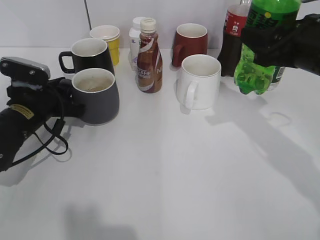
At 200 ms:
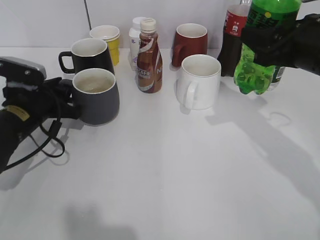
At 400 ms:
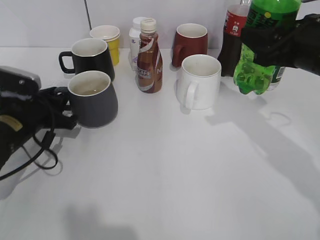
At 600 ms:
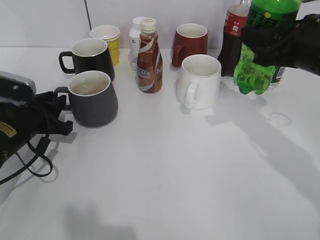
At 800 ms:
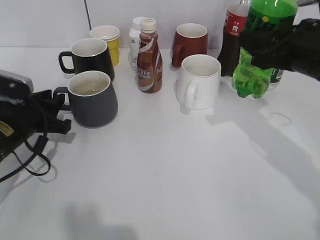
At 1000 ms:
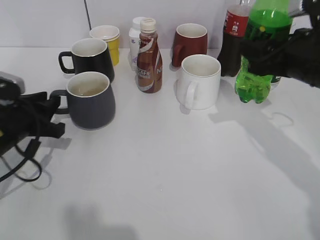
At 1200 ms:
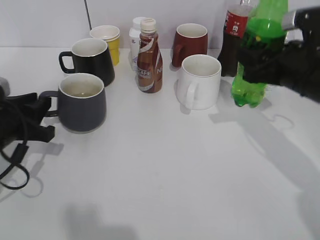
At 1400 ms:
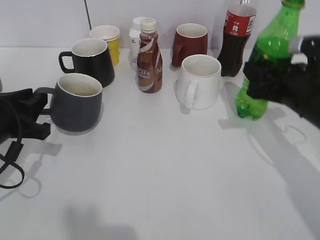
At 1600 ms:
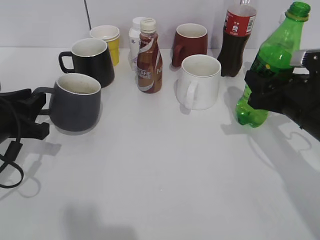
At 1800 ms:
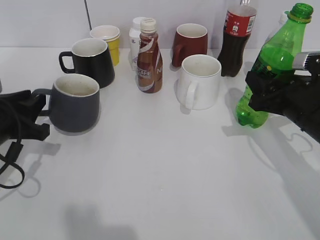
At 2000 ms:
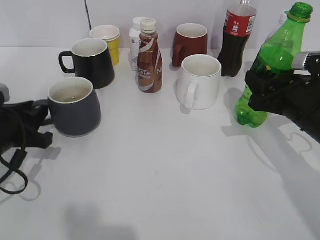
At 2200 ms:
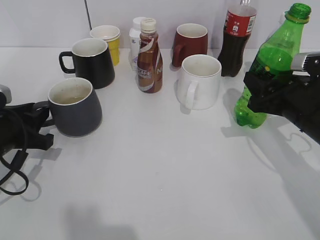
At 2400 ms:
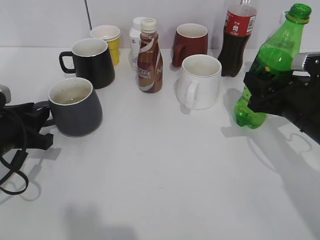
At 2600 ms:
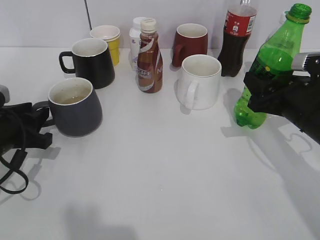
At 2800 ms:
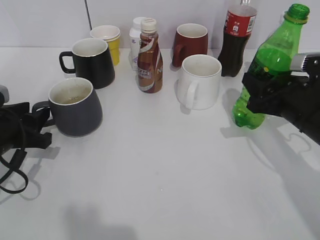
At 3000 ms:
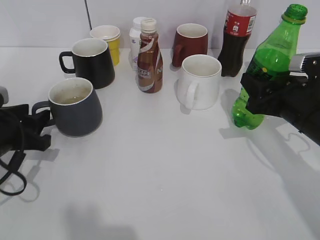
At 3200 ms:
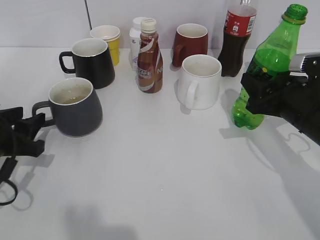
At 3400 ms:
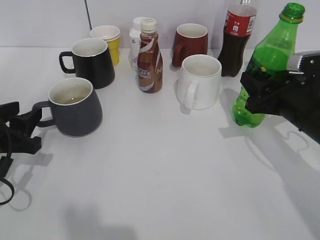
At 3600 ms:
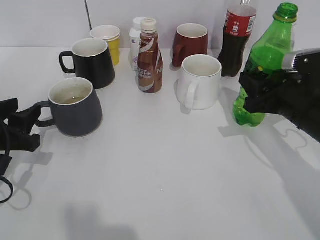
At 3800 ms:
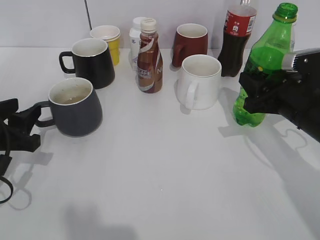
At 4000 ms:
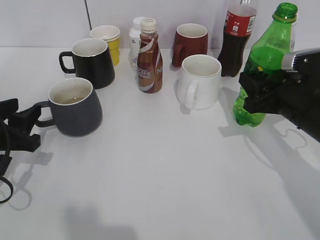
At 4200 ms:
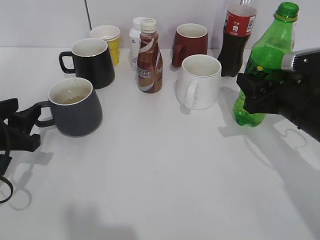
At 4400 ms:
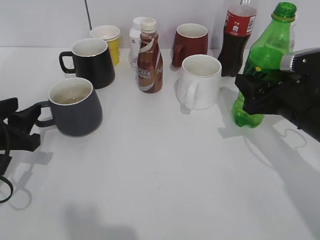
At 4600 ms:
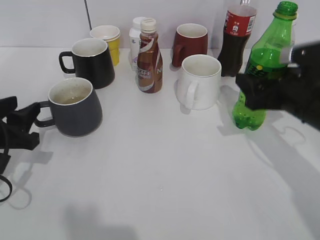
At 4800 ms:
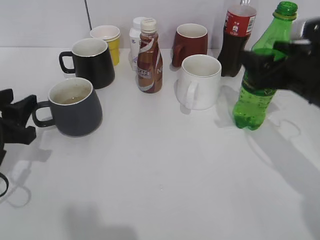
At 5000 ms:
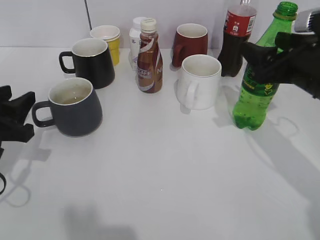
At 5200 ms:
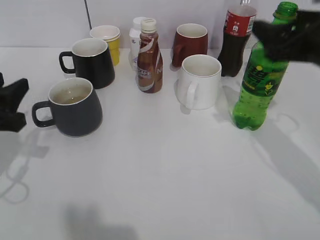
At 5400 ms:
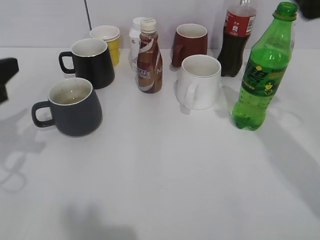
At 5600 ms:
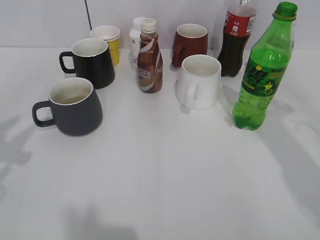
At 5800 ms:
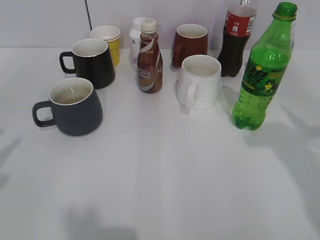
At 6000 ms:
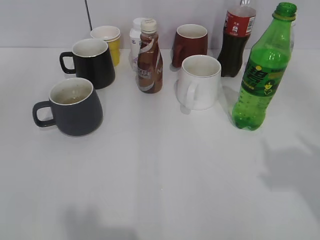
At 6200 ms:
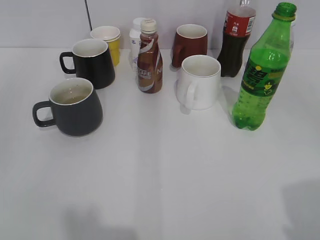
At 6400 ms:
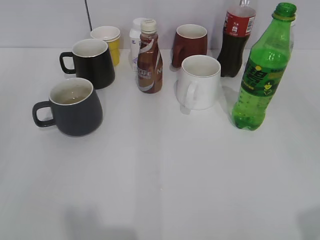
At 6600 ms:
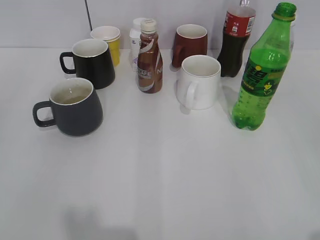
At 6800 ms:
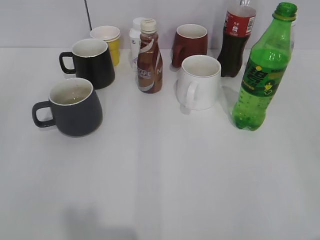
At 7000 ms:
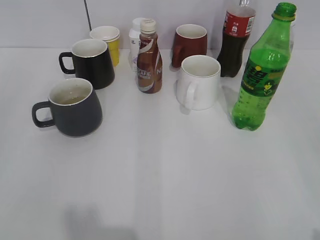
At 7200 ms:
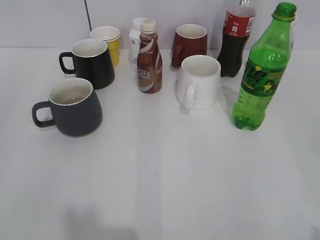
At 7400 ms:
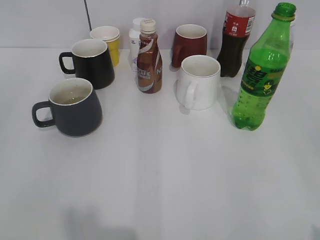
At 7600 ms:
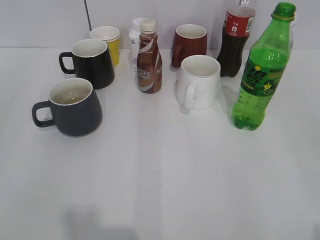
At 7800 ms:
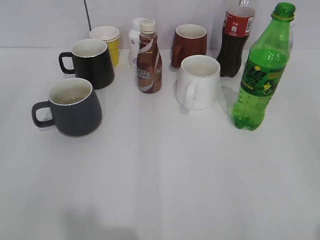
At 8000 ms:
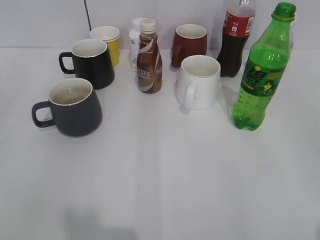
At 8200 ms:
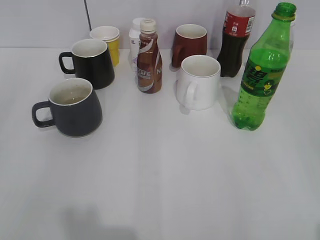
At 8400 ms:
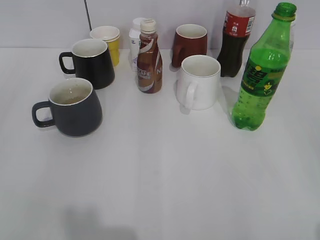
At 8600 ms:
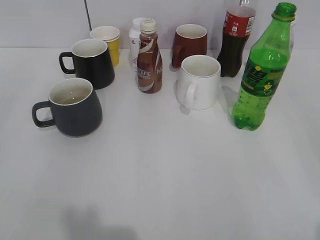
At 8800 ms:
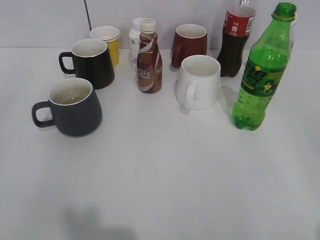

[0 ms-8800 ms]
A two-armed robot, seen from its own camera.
Step, 800 ms to 5000 ms: Place the sprite bottle on the table with right gripper.
0 ms to 1400 ms: The left gripper moves backward, about 10 cm. The right gripper is displaced downward by some 10 cm.
1400 ms to 3000 ms: The left gripper opens its fingers.
3000 ms to 4400 ms: The right gripper opens its fingers.
4400 ms to 5800 ms: Both grippers travel together upward and backward, approximately 25 cm. The right gripper opens.
5800 ms to 7400 ms: The right gripper is displaced backward and downward by roughly 20 cm; the left gripper goes approximately 15 cm backward and downward.

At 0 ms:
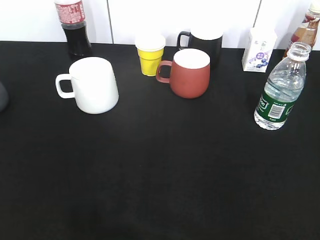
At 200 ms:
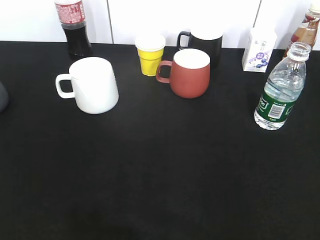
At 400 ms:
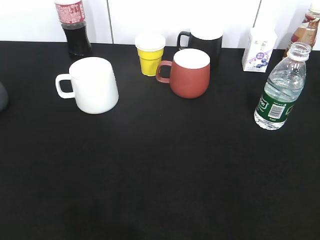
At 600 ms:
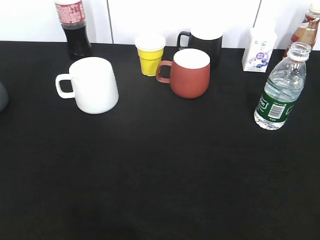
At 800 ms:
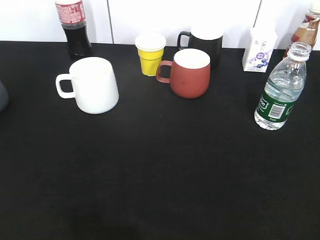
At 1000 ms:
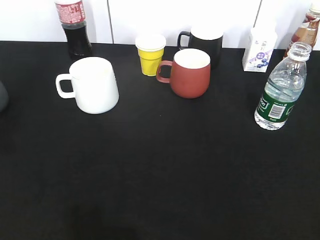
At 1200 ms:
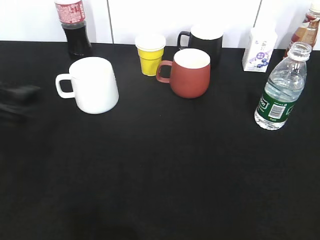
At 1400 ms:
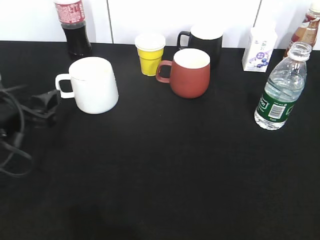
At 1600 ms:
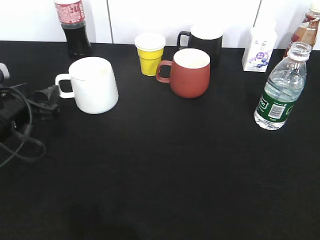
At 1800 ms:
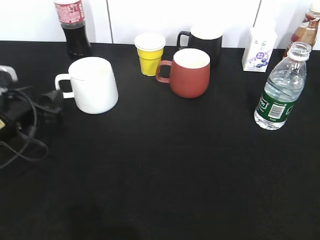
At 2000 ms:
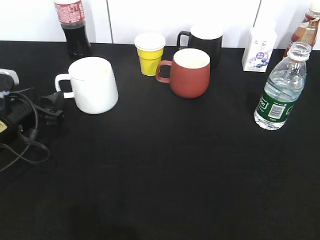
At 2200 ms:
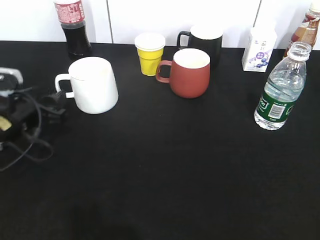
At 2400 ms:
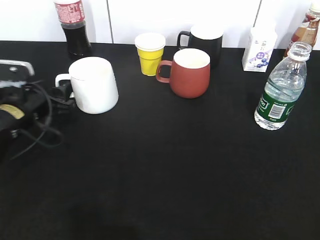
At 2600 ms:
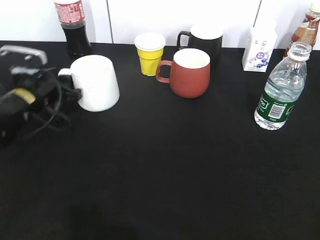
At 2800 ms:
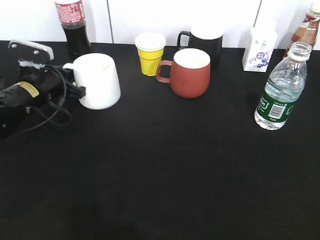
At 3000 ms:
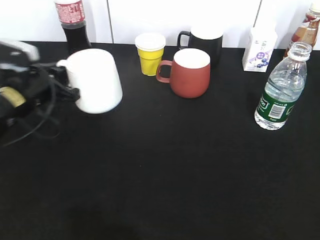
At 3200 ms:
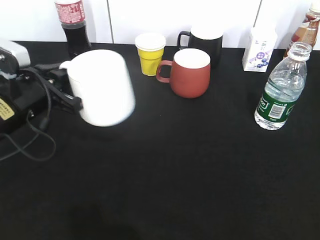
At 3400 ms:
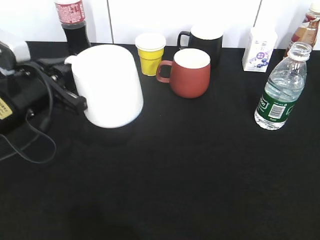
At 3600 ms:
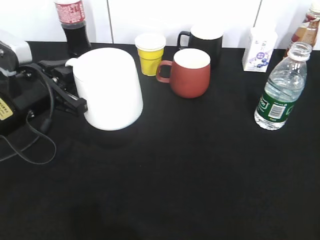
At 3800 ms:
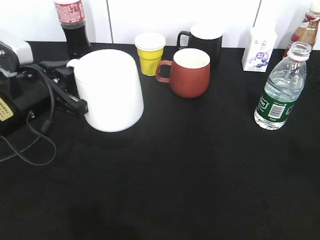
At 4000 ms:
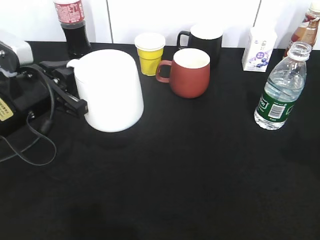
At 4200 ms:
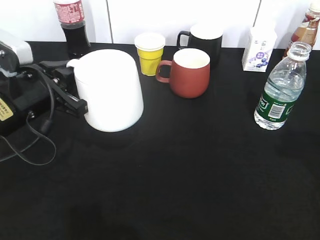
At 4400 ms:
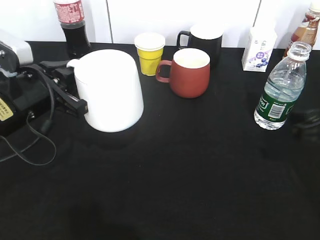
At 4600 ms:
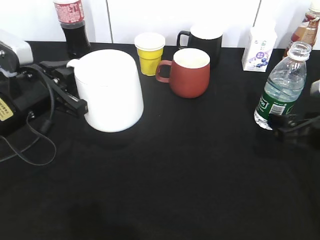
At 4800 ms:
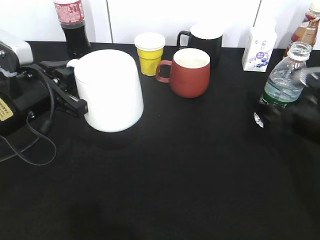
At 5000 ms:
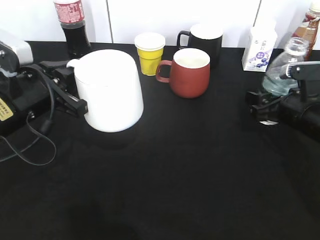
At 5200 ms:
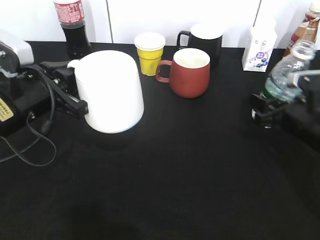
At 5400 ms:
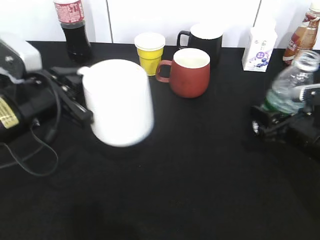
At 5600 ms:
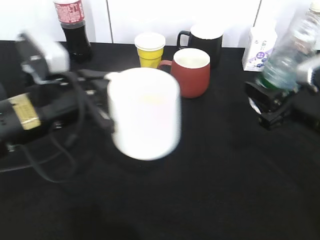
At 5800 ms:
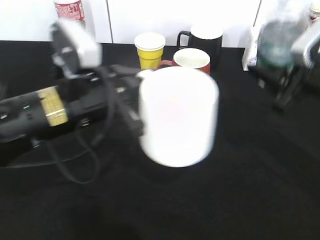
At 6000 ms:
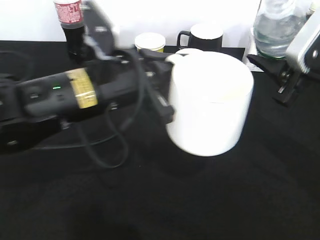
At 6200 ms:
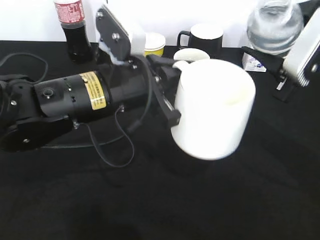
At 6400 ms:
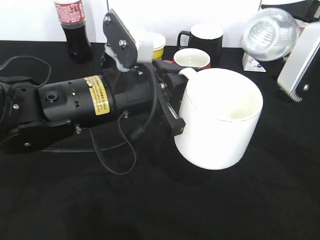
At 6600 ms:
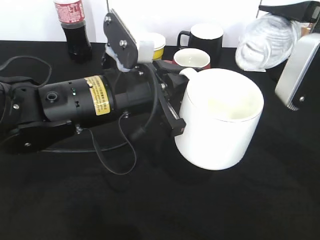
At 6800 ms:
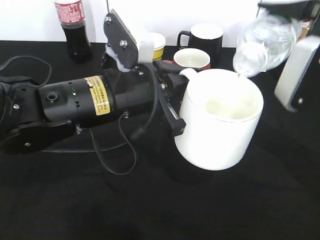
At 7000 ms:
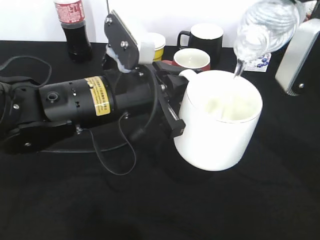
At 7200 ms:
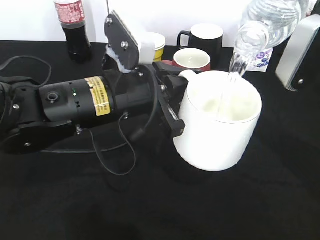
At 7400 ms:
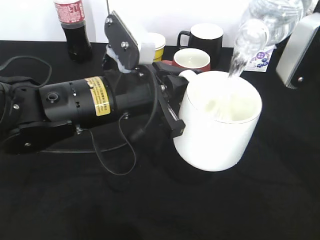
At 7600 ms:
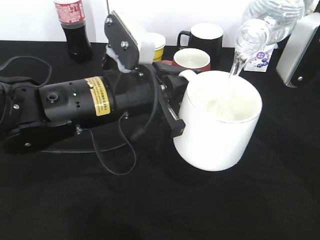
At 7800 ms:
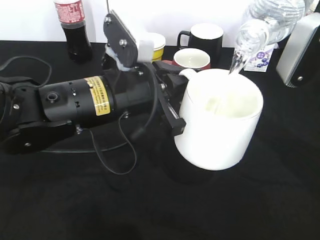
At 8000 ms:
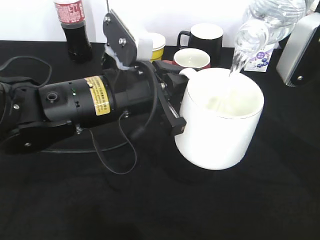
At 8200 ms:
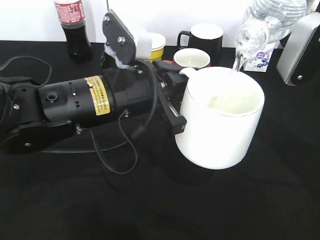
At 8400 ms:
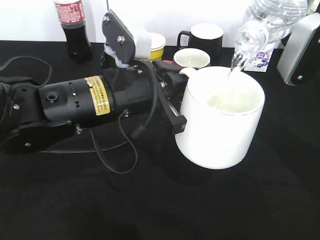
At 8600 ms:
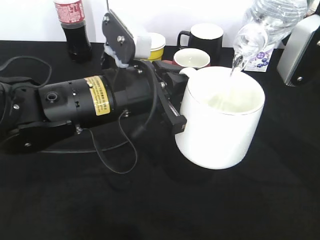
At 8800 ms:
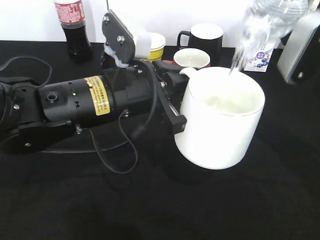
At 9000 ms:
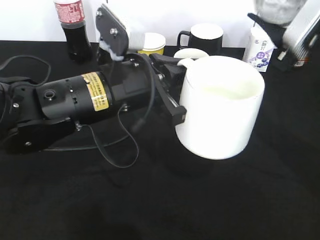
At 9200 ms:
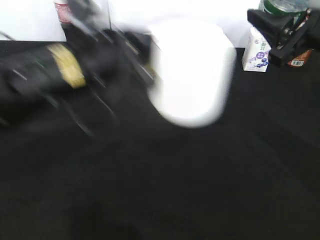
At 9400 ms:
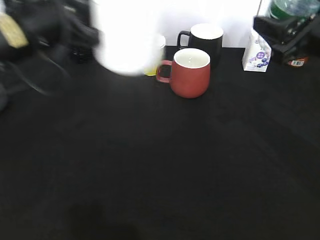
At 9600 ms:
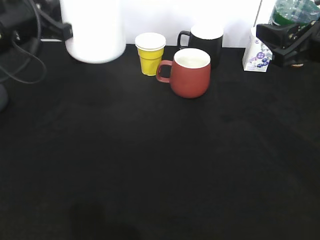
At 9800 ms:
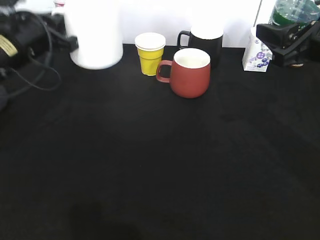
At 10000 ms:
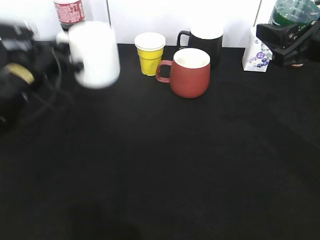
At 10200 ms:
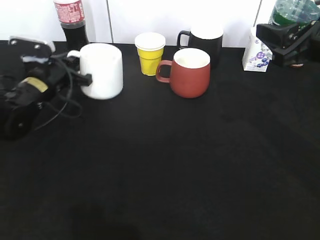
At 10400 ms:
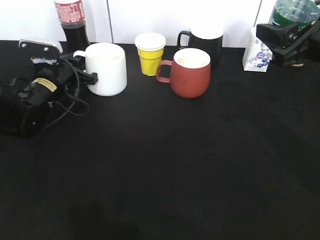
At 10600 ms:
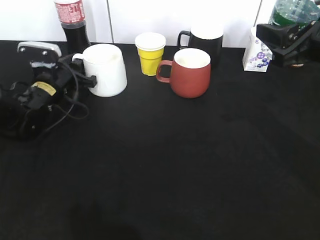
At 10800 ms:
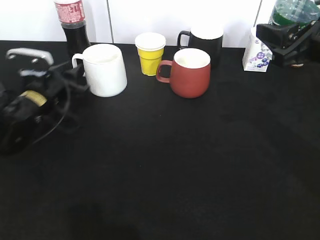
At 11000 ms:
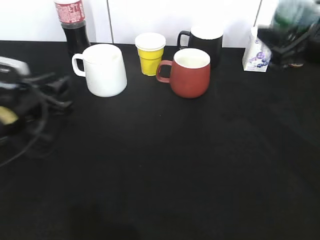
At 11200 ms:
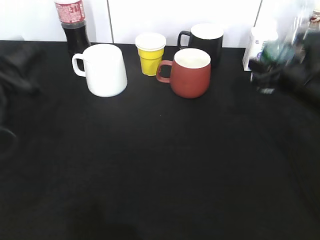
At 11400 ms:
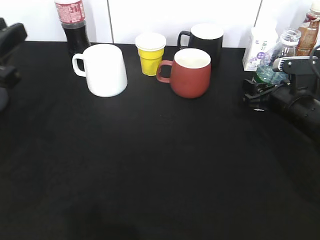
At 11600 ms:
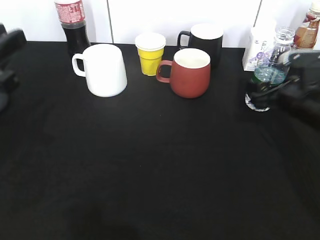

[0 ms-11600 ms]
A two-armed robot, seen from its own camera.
Step, 600 ms to 2600 ms: Grasp the white cup with left gripper.
Step, 3000 ms to 3400 ms: Lift the white cup with left gripper.
Step, 3600 ms to 5000 ms: Grasp the bottle with water with right gripper.
Step, 5200 ms to 9200 ms: Pour the water from bottle to cup with right gripper.
Step, 9400 ms to 10800 ms: Place the white cup on the table with left gripper.
0 ms to 1400 ms: The left gripper shifts roughly 25 cm forward and downward, and opens.
1400 ms to 2800 ms: The left gripper heads forward, covering about 15 cm, and closes up.
2800 ms to 4400 ms: The left gripper shifts approximately 15 cm backward and upward. Meanwhile the right gripper heads forward and downward, covering some 25 cm.
4400 ms to 5800 ms: The left gripper moves to the right, some 10 cm. Meanwhile the right gripper is displaced upward by some 5 cm, and closes up.
7200 ms to 8800 ms: There are only small adjustments of the grippers.
8800 ms to 10200 ms: The left gripper travels to the left, forward and downward by roughly 25 cm.
10200 ms to 11600 ms: The left gripper is displaced backward and upward by some 20 cm, and opens. The right gripper goes about 10 cm downward, and opens its fingers.

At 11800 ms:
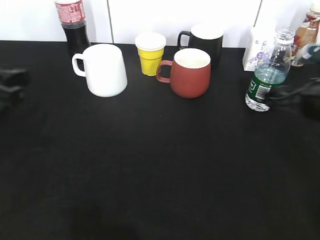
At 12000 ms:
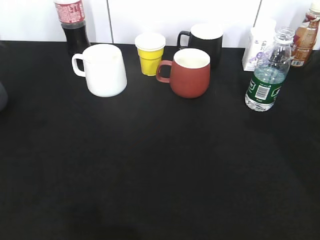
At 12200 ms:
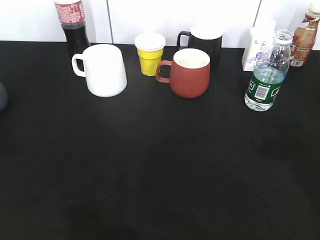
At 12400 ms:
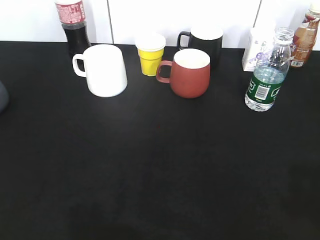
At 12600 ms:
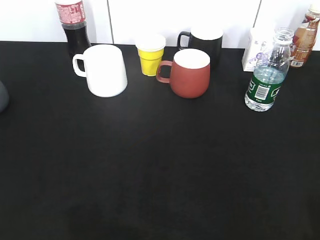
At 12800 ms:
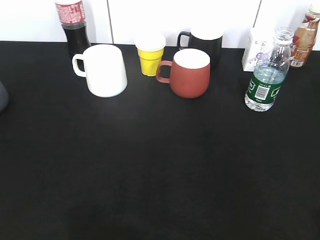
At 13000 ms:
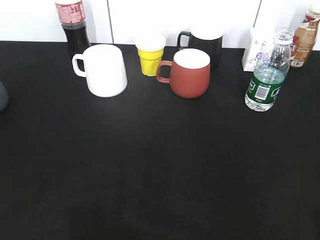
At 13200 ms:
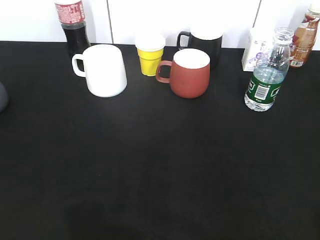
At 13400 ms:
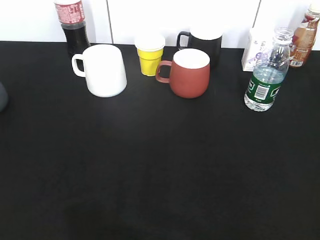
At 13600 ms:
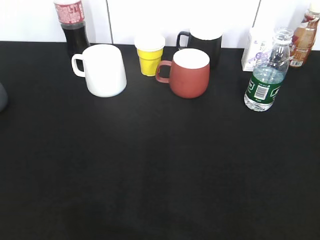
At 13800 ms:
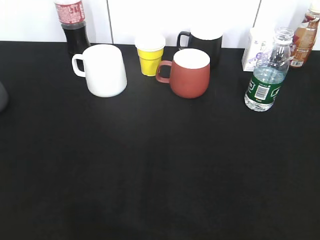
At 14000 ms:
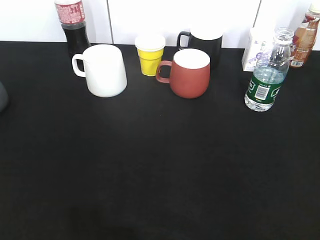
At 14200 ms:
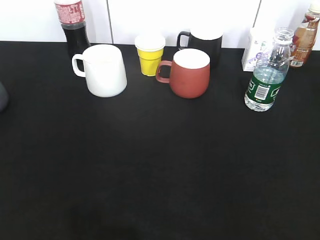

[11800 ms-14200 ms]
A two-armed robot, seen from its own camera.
11800 ms to 13000 ms: The grippers both shift backward by approximately 25 cm.
13000 ms to 14200 ms: The grippers move only a little.
